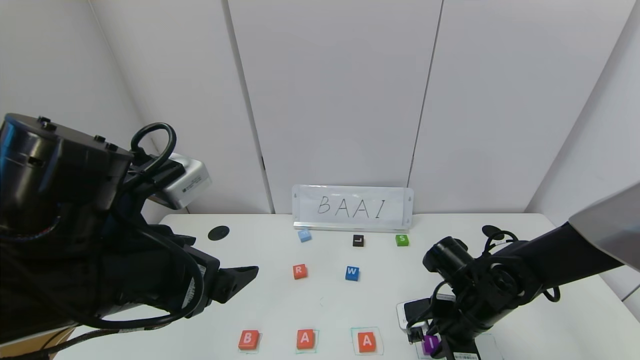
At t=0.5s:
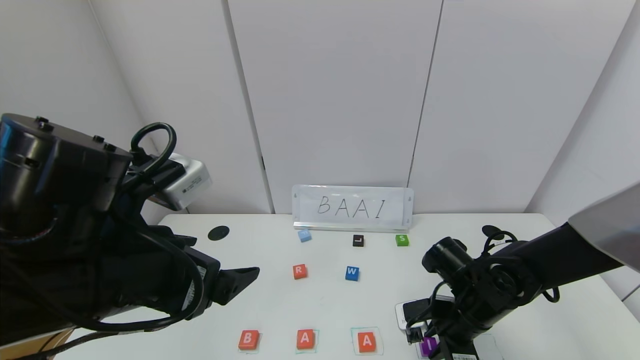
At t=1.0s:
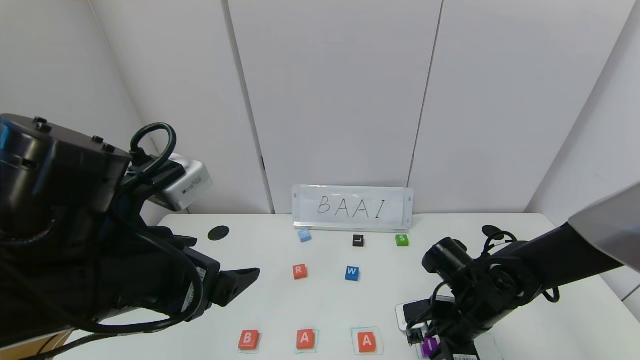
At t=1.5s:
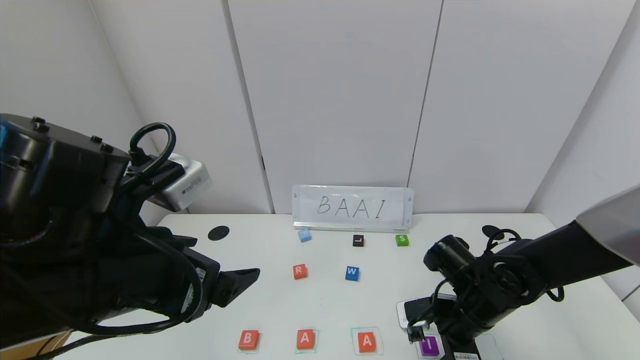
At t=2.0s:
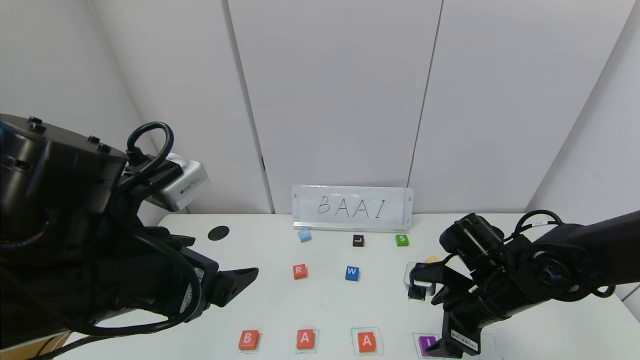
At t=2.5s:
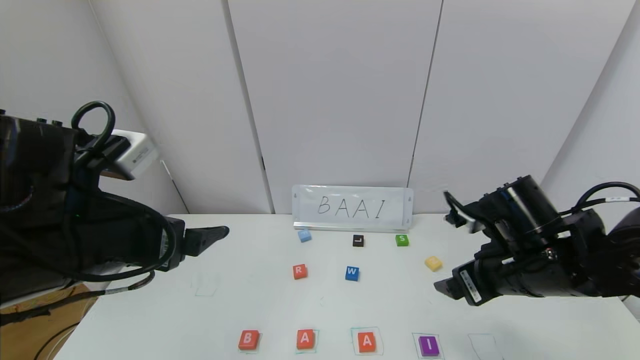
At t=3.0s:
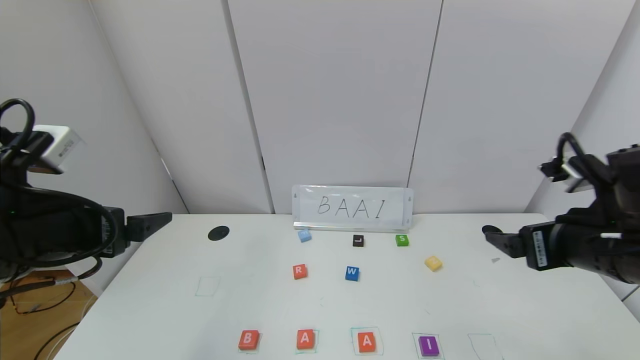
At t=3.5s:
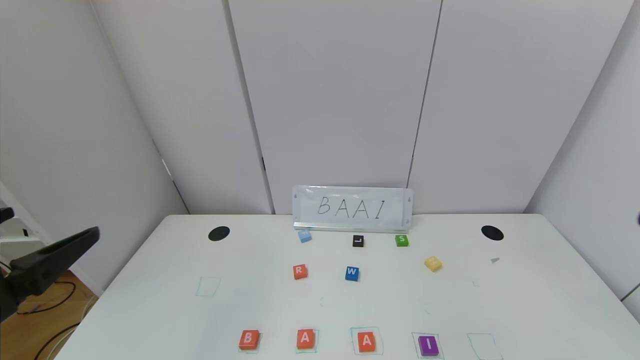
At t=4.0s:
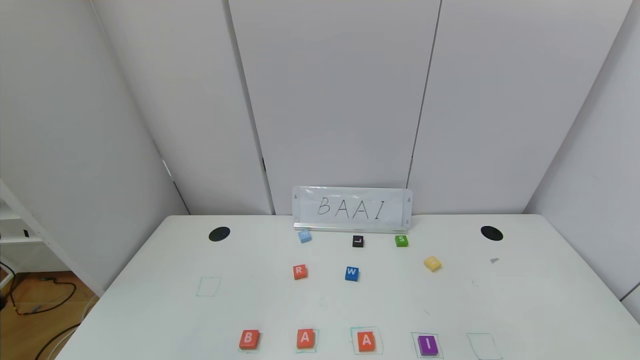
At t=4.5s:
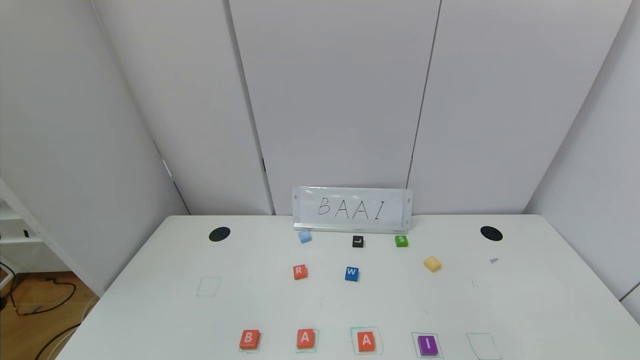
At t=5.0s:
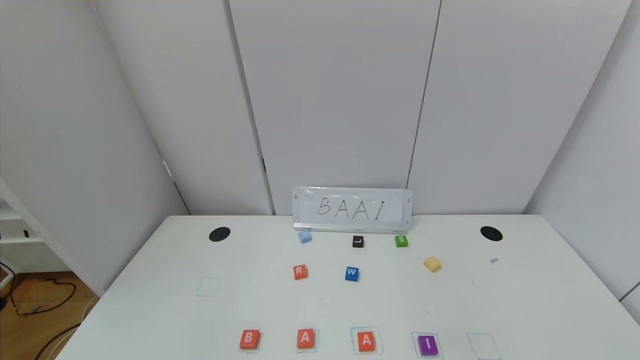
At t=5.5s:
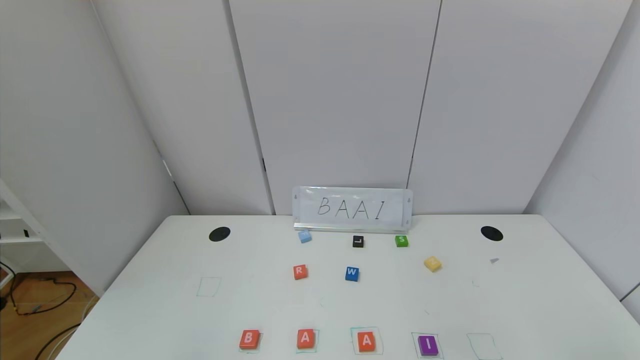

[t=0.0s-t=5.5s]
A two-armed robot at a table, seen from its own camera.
Task of the whole recording: use the gripper to find blocks with the letters b, a, a, and i on the table and arrange them into BAAI, then find r and N and turn the arranged baai into brian.
t=0.0s to t=2.0s: The right gripper shifts some 5 cm upward, and opens up.
t=2.0s to t=3.5s: The right gripper goes some 30 cm backward, upward and to the right; the left gripper heads to the left and backward, covering roughly 15 cm.
t=3.5s to t=5.5s: The left gripper heads downward and backward, covering approximately 20 cm.
